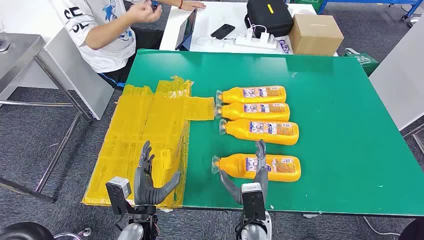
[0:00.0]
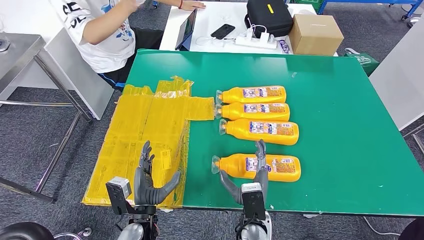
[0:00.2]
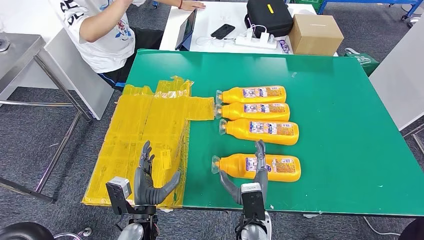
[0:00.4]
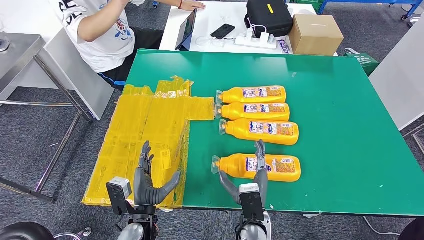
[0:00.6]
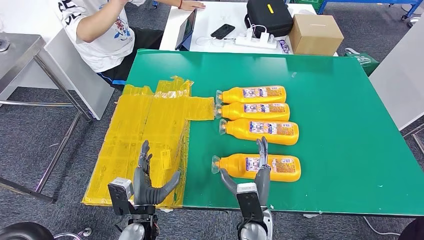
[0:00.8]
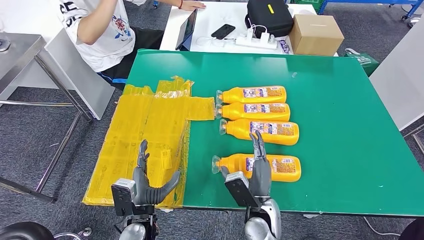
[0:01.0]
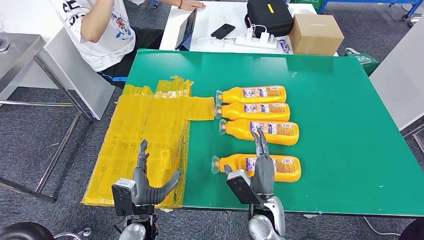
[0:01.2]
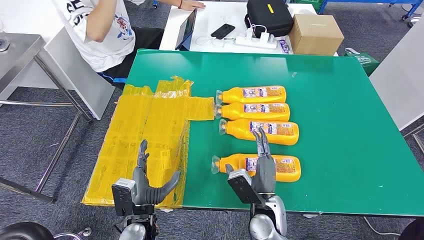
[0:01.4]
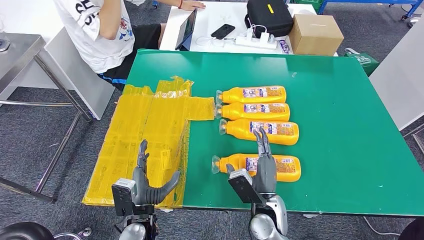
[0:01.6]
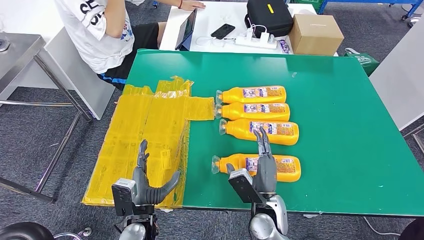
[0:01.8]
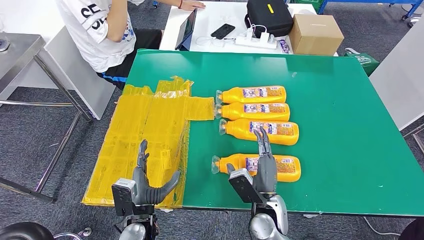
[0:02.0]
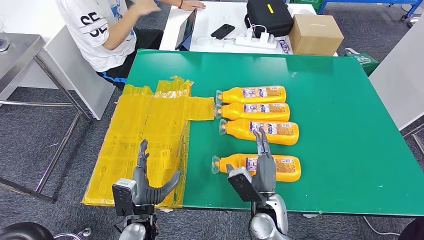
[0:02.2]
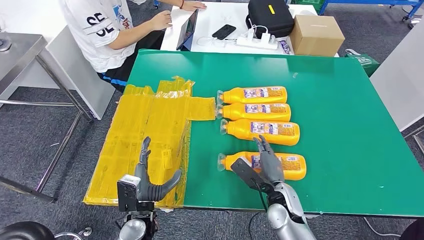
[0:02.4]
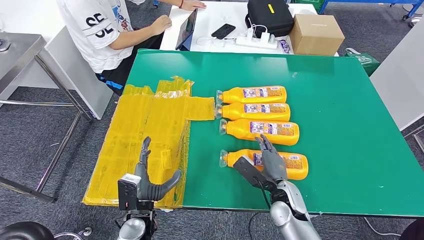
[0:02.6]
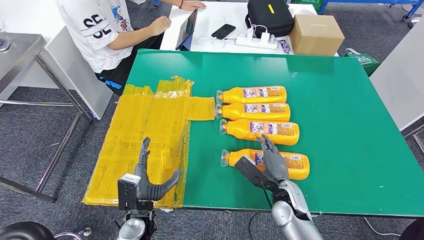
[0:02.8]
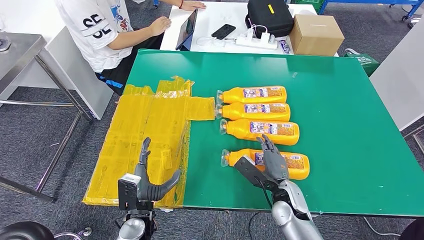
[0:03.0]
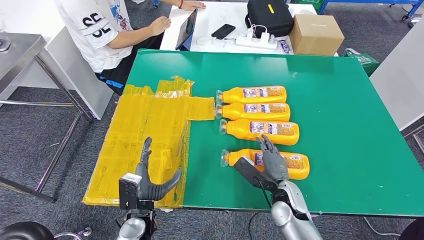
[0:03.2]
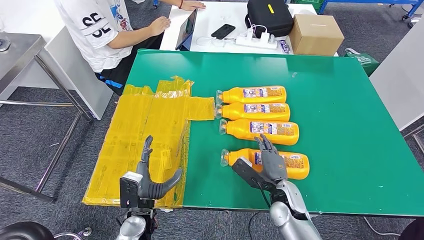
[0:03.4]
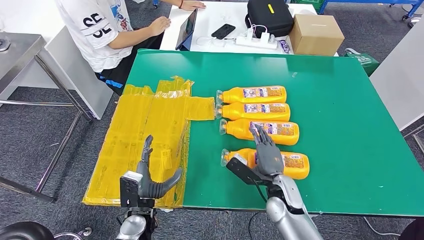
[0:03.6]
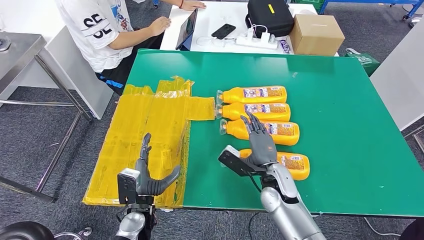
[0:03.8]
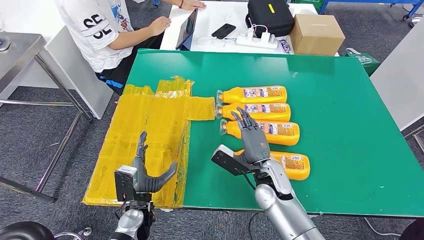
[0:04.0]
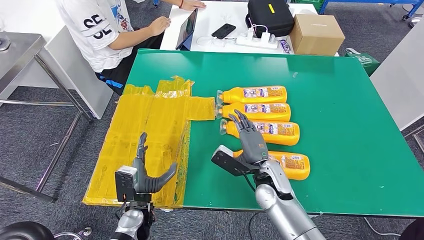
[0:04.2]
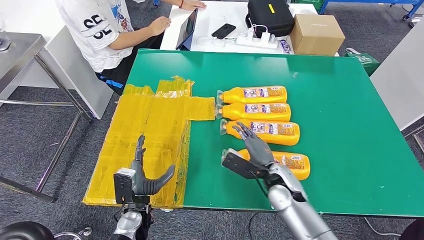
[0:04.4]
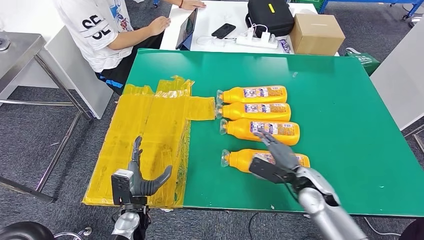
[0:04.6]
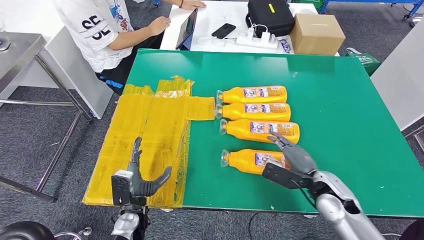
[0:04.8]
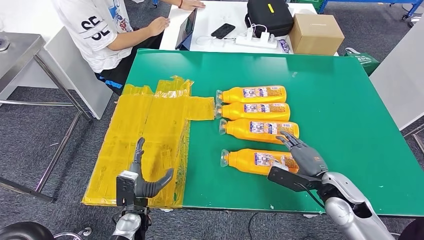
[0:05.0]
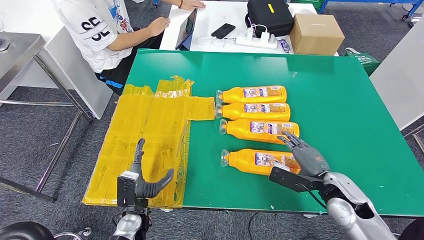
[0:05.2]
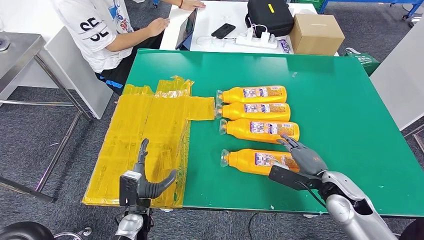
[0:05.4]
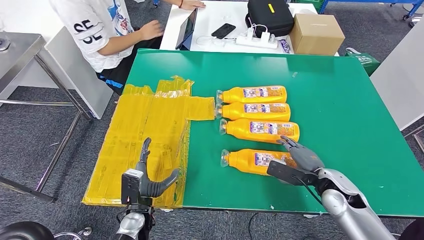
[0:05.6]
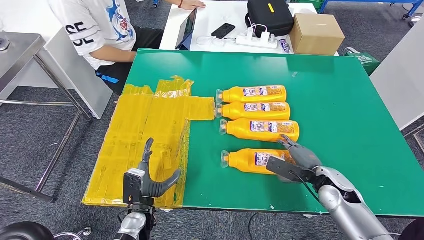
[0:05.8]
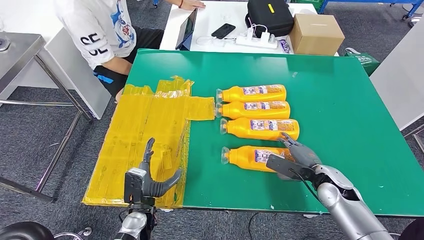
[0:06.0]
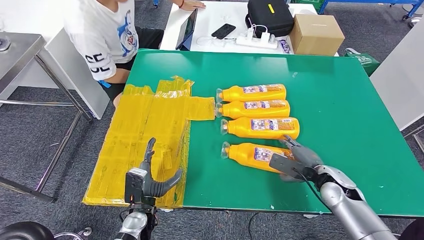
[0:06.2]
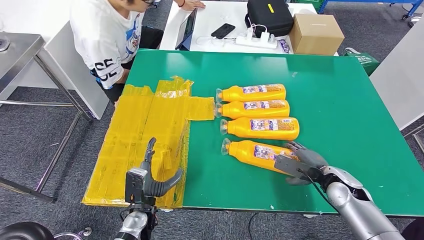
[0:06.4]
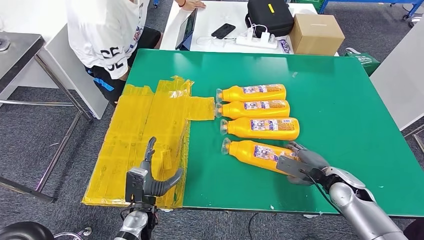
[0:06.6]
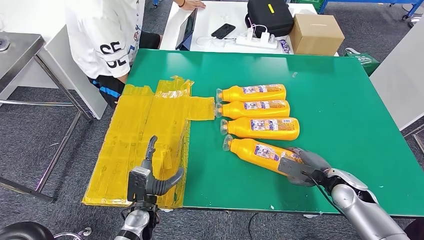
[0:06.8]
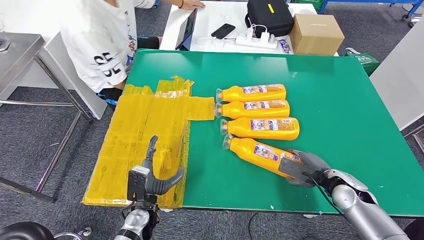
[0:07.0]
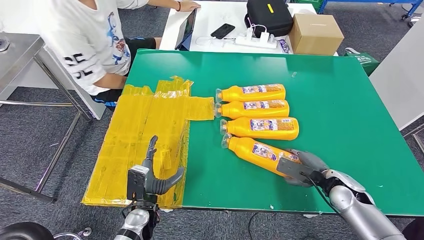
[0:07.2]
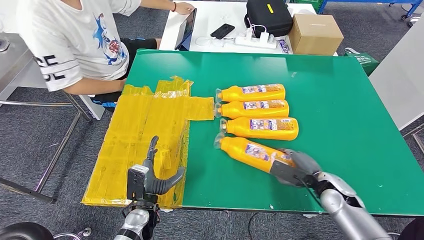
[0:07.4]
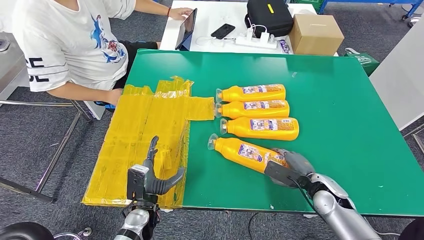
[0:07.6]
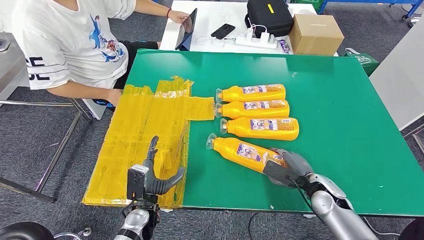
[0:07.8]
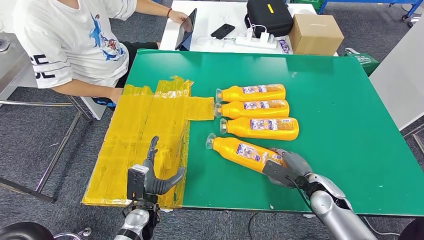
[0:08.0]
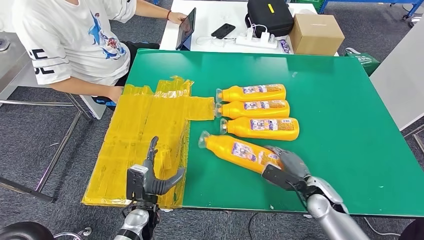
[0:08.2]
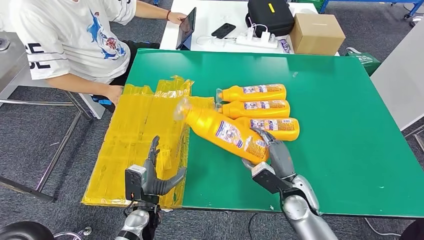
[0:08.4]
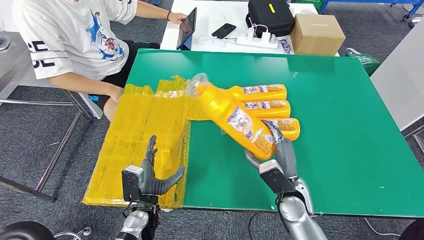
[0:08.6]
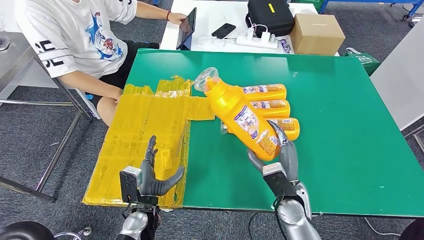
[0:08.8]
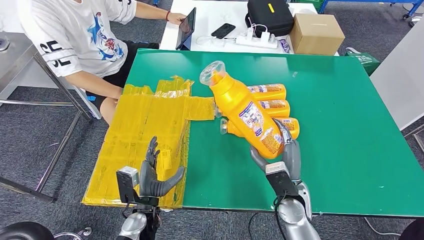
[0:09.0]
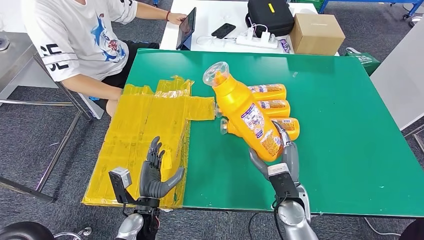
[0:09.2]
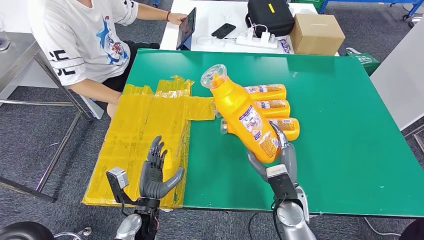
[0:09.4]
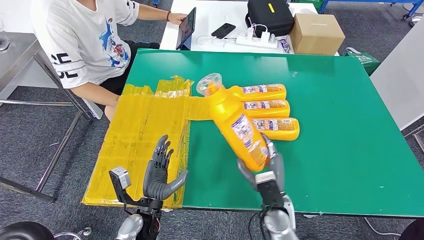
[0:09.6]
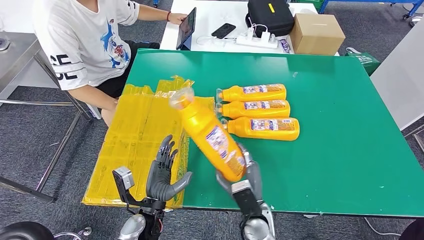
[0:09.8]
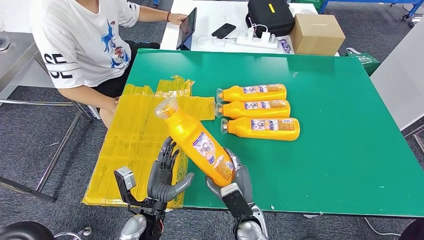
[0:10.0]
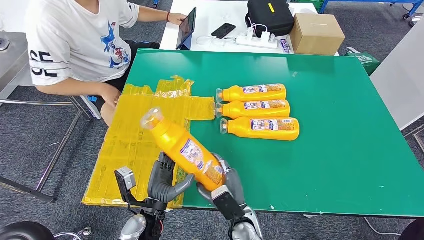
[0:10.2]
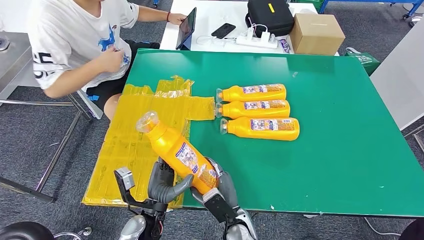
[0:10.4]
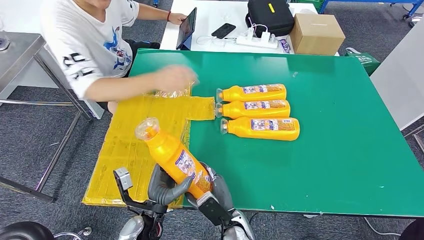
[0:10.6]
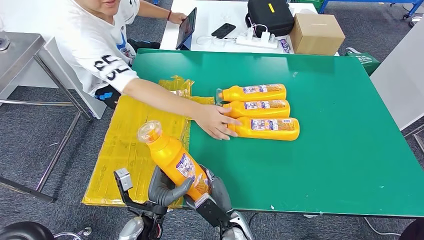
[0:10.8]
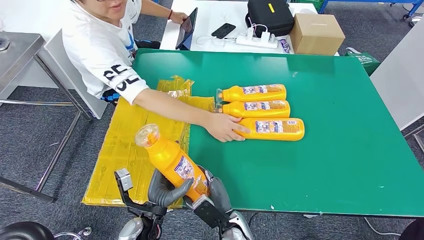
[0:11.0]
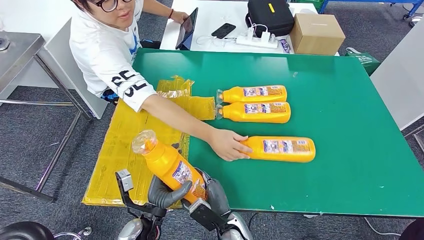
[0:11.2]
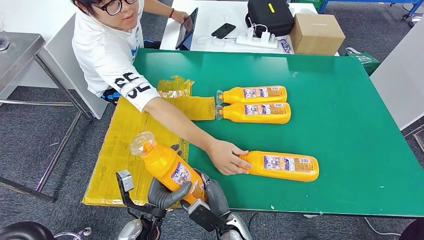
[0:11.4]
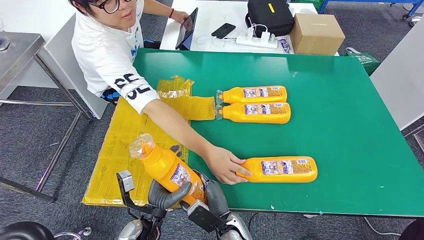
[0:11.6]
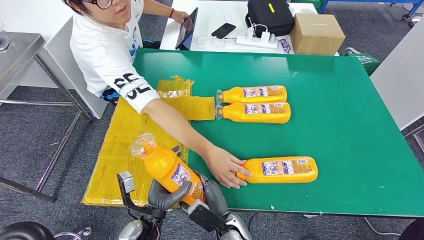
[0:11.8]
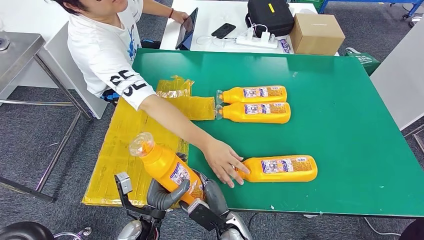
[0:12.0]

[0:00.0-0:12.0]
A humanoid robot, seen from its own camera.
Step, 0:00.0 to 0:10.8: Take the fast-moving consumer goods bottle from the table.
0:01.6 to 0:03.0: The right hand travels to the right by some 5 cm.
0:04.4 to 0:06.0: The right hand moves to the right, about 15 cm.
0:06.0 to 0:07.6: The hands move only a little.
0:07.6 to 0:09.0: The right hand is displaced to the left by some 10 cm.
0:09.0 to 0:10.4: The right hand goes approximately 15 cm to the left, downward and backward.

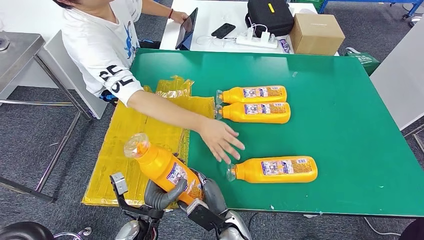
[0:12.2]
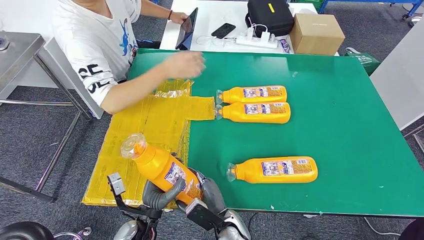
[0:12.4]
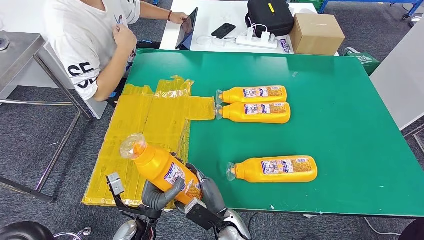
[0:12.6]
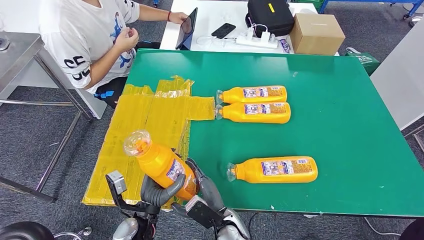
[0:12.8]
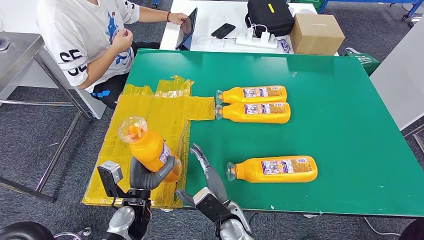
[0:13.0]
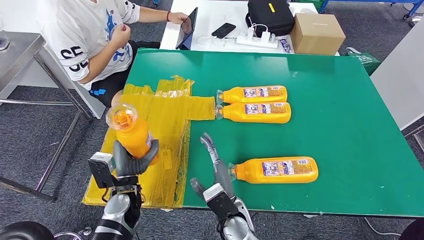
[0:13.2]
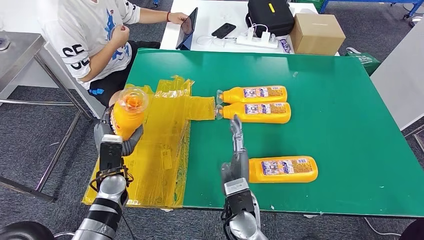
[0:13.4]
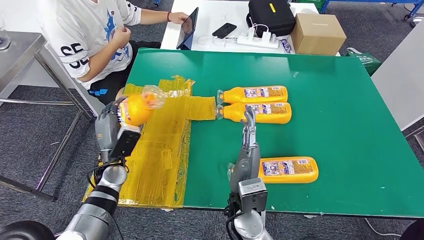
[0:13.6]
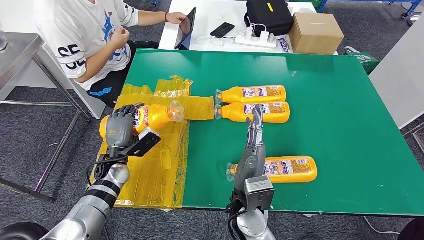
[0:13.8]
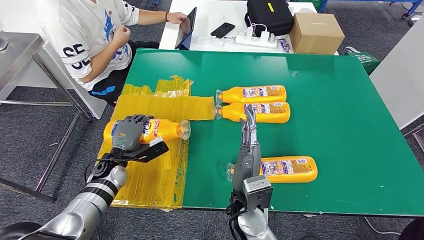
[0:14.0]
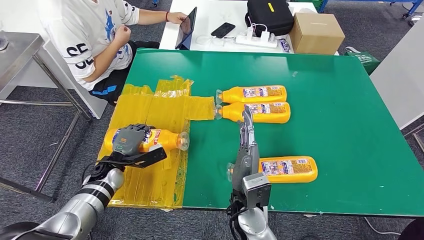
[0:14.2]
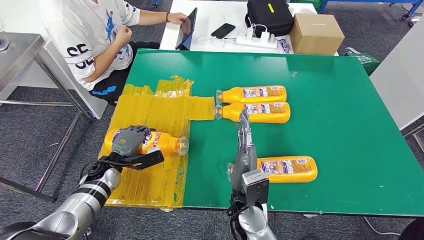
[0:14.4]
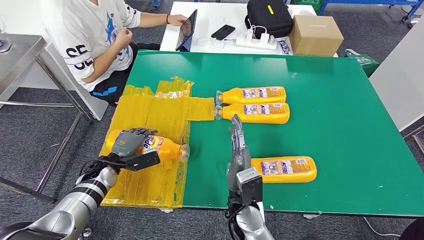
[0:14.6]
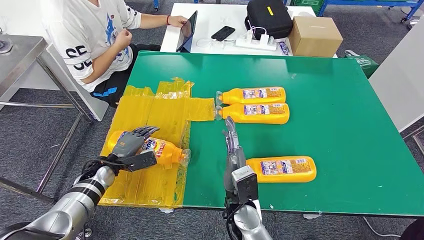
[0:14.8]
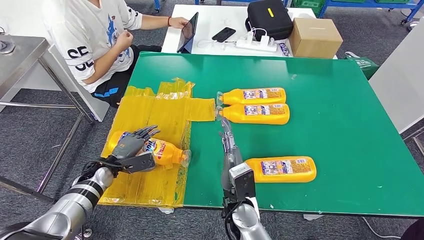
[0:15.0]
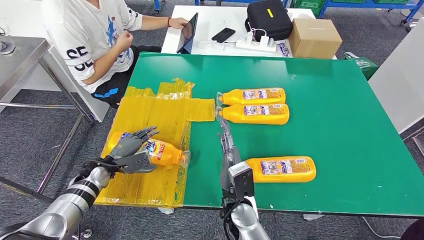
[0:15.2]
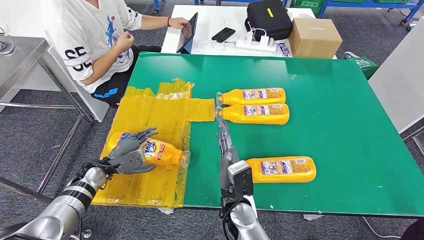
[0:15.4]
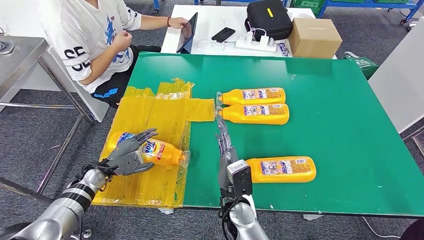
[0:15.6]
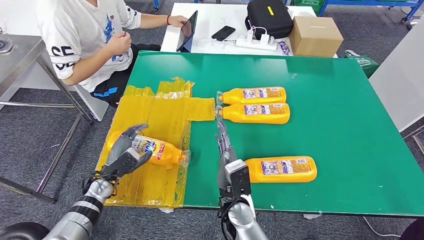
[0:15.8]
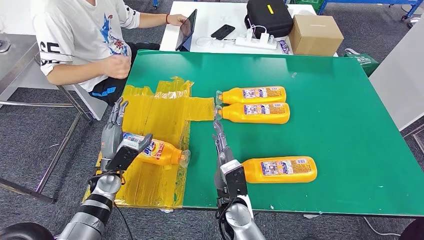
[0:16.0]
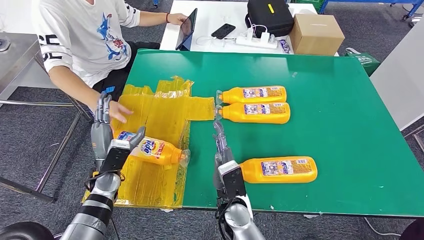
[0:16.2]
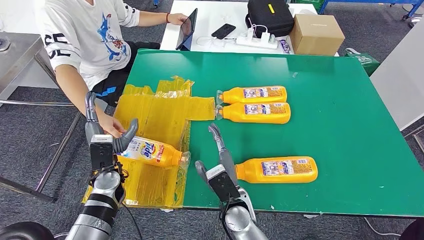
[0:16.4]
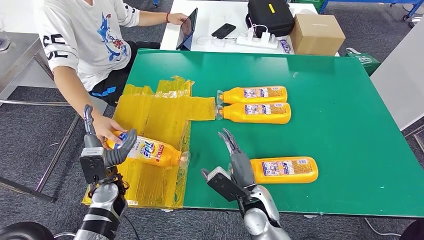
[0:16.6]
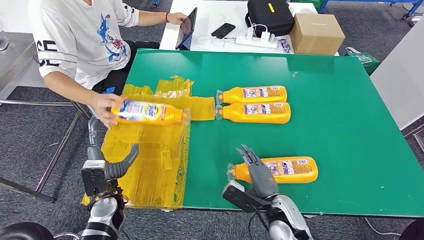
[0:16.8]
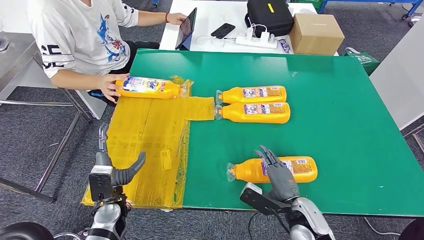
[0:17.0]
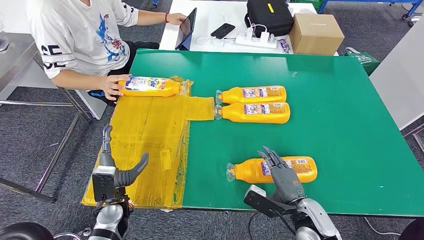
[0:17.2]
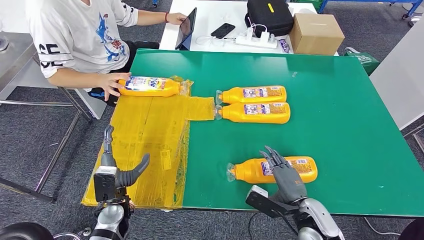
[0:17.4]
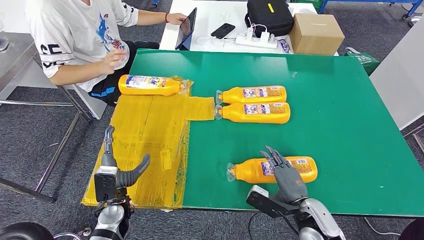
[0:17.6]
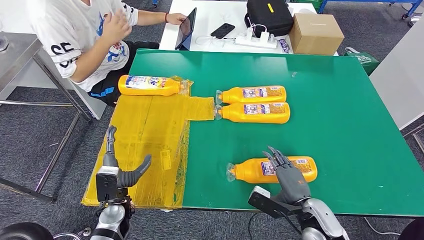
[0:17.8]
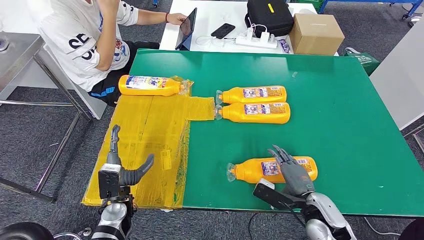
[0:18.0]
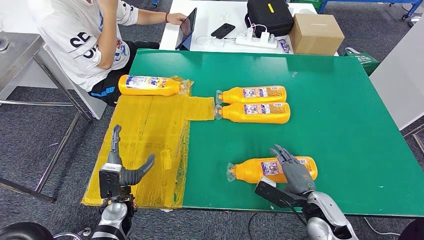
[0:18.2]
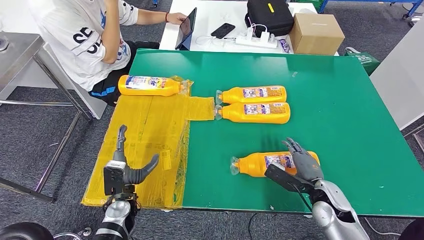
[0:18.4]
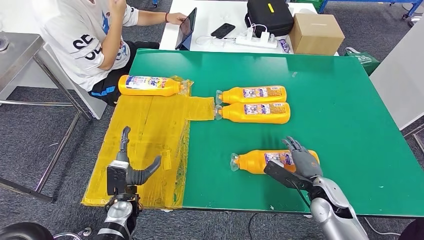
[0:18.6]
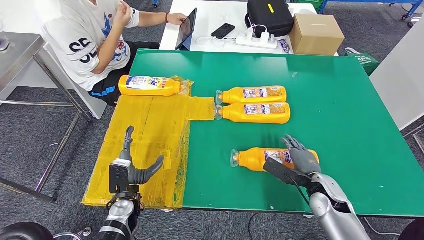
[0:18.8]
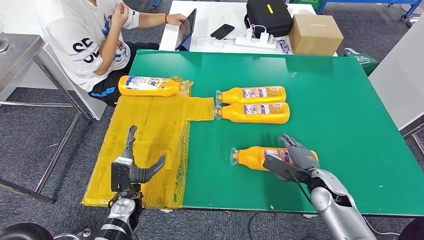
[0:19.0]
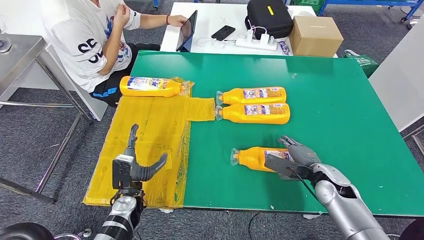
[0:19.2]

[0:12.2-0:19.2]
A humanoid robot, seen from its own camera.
Step, 0:12.2 to 0:14.8: Flip the fast-moving consumer goods bottle to the front side.
